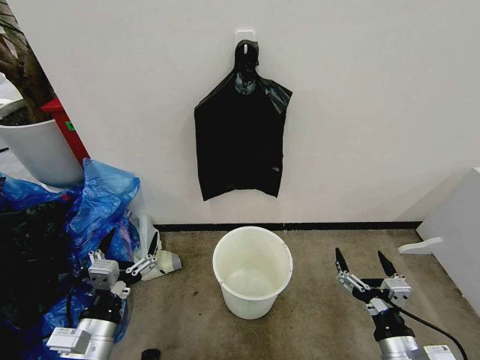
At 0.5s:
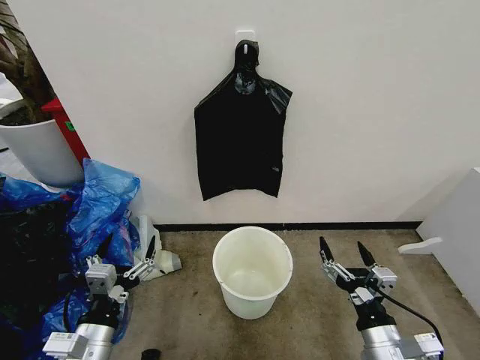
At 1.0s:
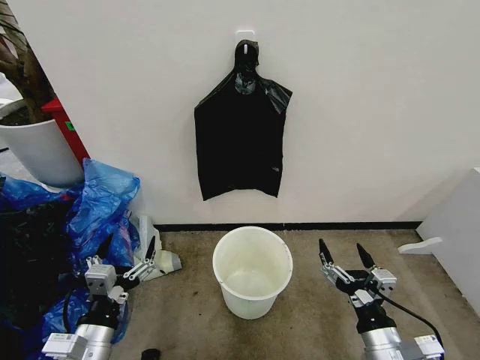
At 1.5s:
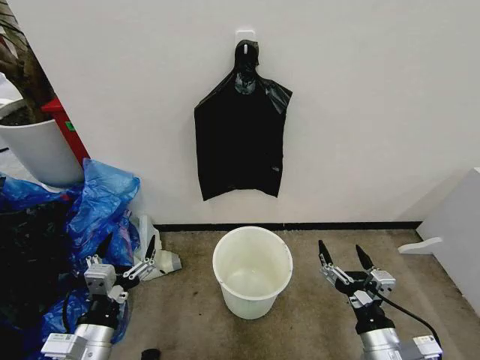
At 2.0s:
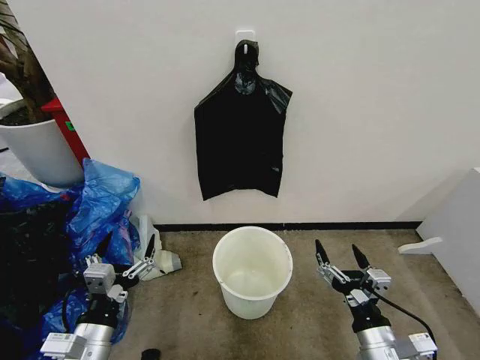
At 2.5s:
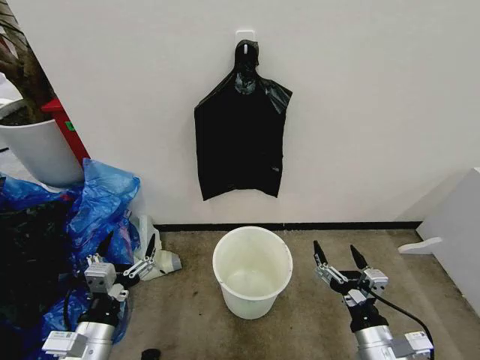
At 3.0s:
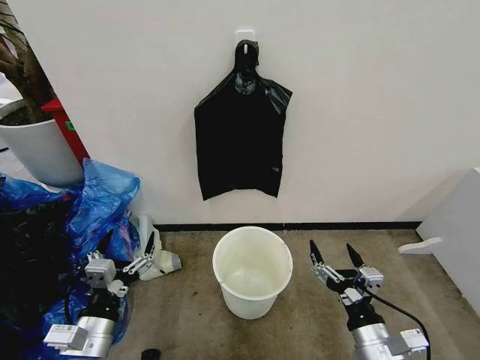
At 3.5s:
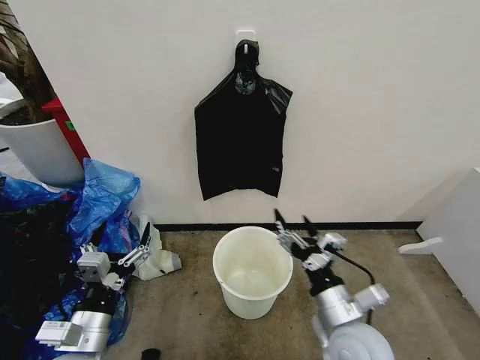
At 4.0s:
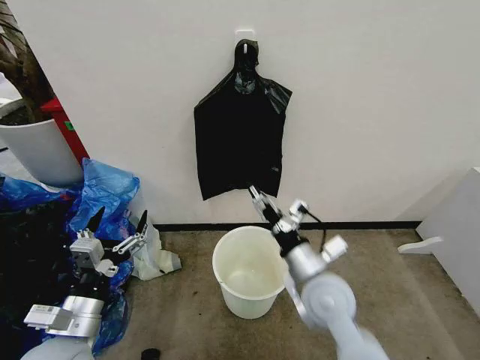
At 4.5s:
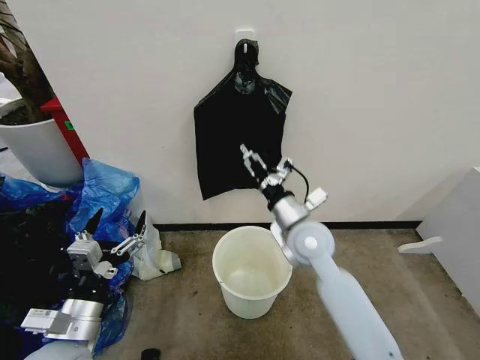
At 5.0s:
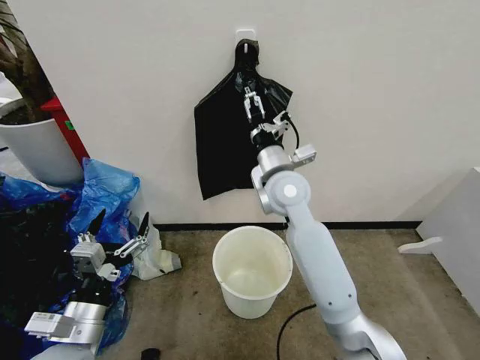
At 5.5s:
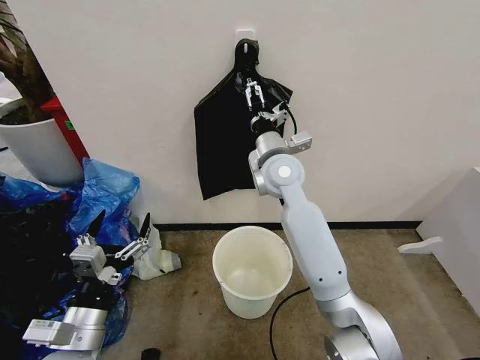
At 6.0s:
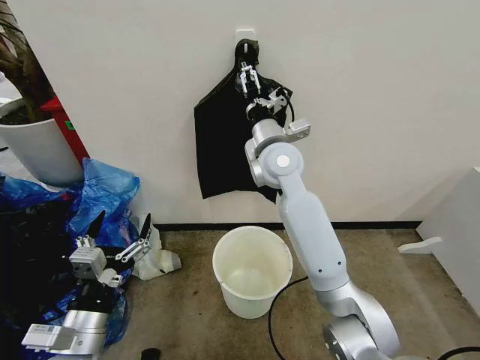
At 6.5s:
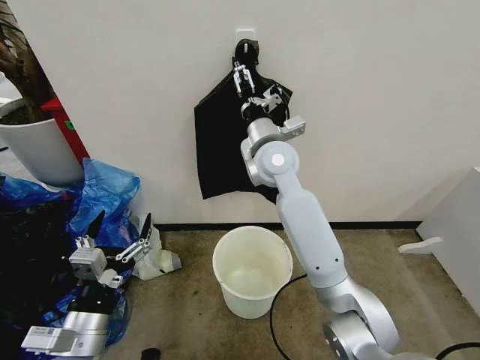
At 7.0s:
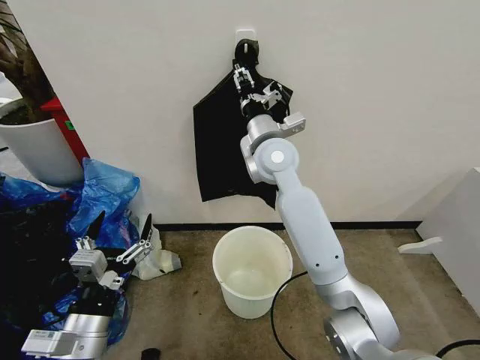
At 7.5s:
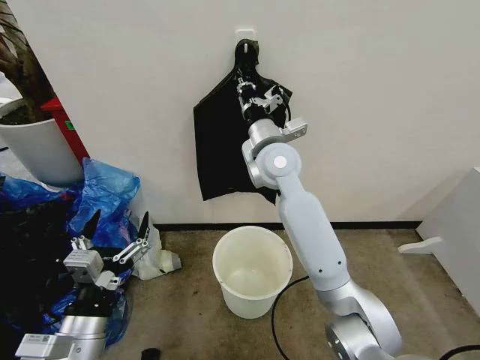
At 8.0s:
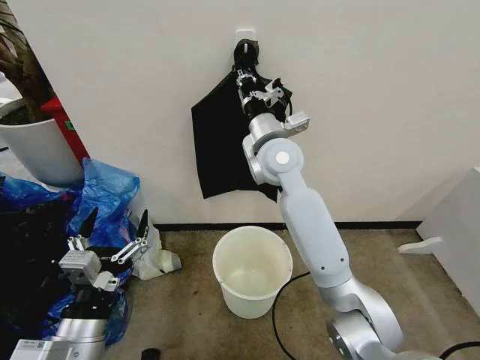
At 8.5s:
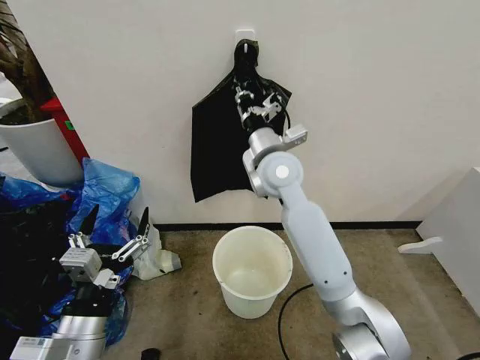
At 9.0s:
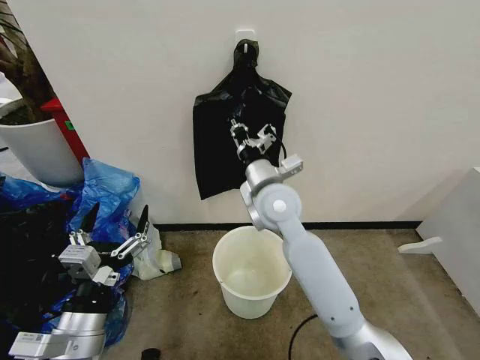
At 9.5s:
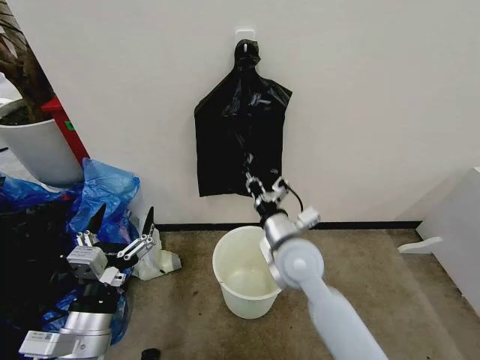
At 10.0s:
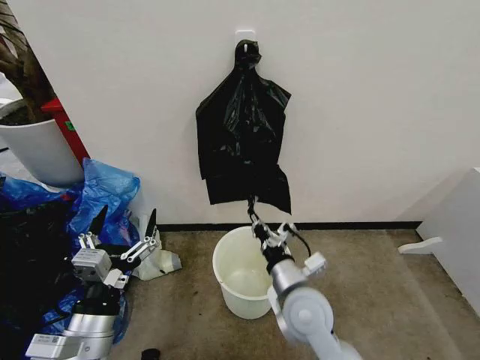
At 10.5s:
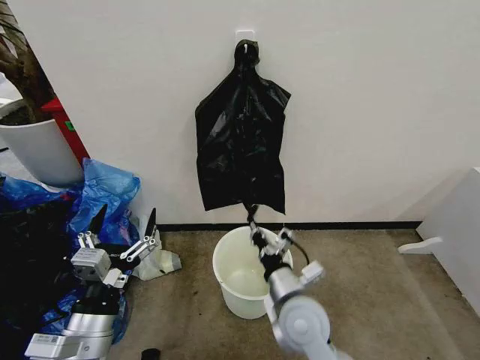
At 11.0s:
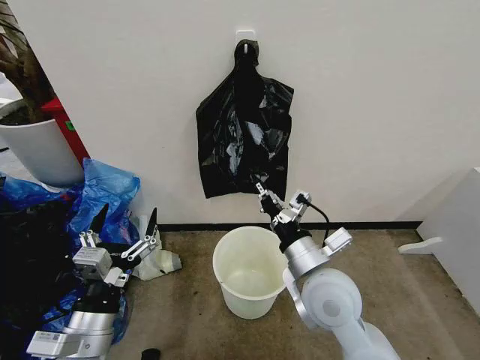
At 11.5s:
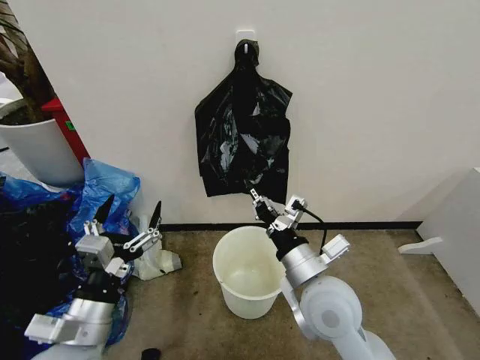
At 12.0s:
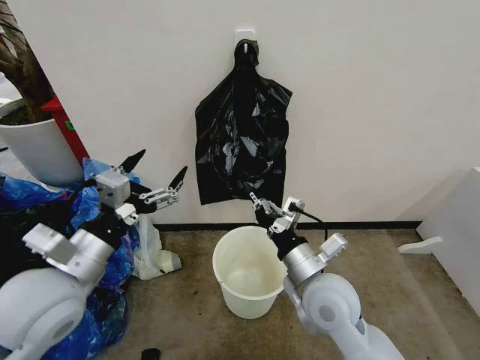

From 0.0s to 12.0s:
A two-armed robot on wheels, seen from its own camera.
Task of the whole recording: Place the garbage bag over the trash bin.
From 2.0s to 4.0s: The right gripper shifts about 20 cm forward, to the left and upward.
From 4.0s to 6.0s: The right gripper is displaced forward, upward and to the left by roughly 25 cm.
From 6.0s to 8.0s: The right gripper closes.
From 8.0s to 10.0s: The right gripper goes approximately 30 cm downward and backward.
From 10.0s to 12.0s: The left gripper travels upward and forward by approximately 15 cm, while the right gripper is displaced upward by about 5 cm.

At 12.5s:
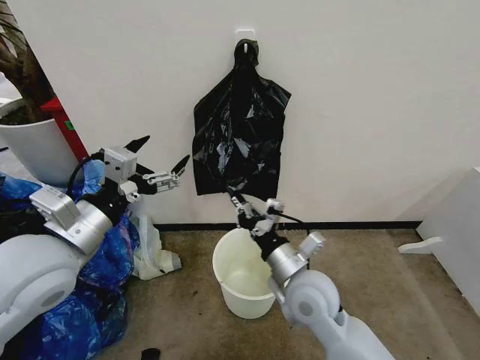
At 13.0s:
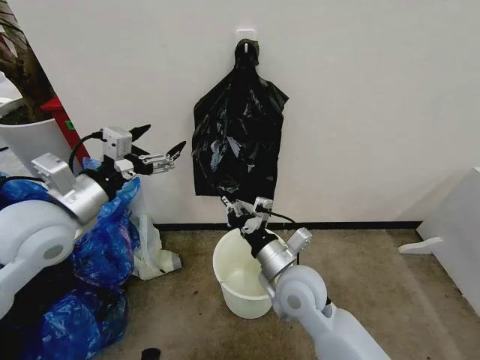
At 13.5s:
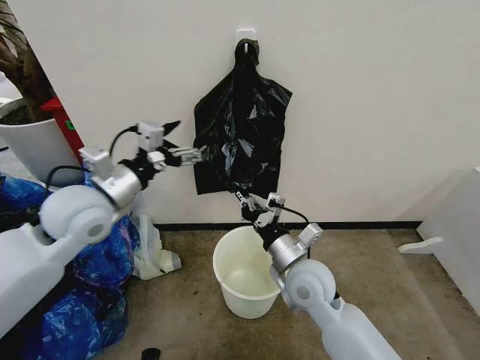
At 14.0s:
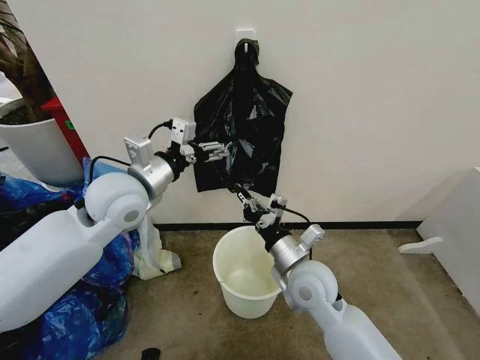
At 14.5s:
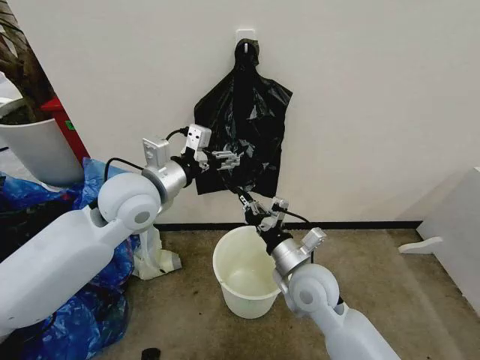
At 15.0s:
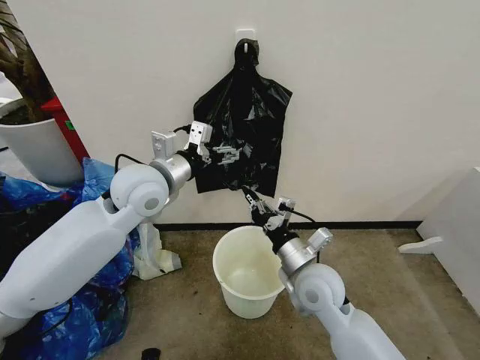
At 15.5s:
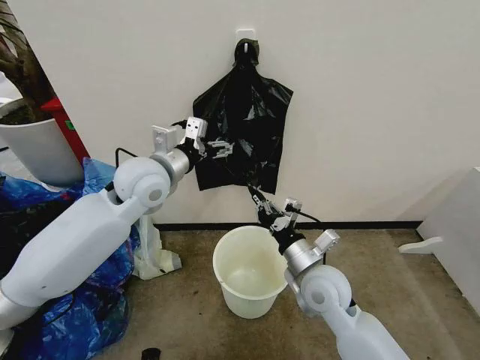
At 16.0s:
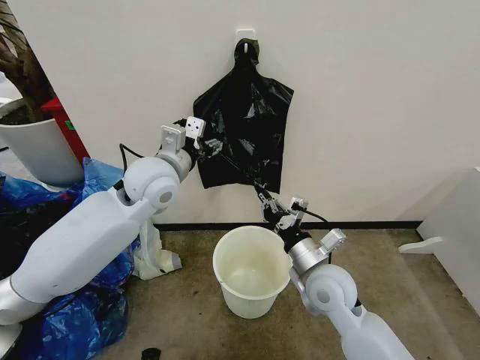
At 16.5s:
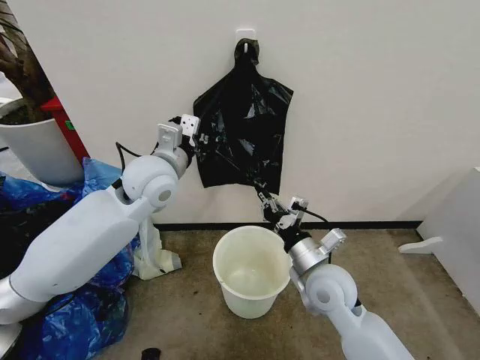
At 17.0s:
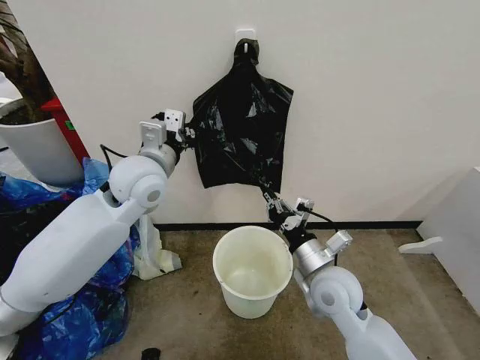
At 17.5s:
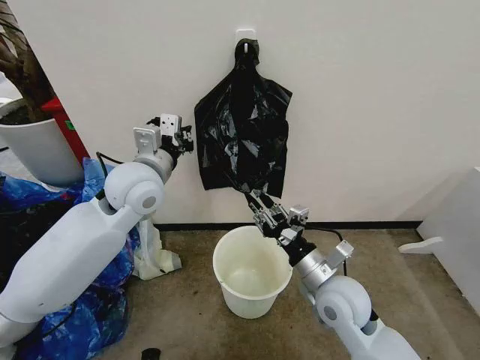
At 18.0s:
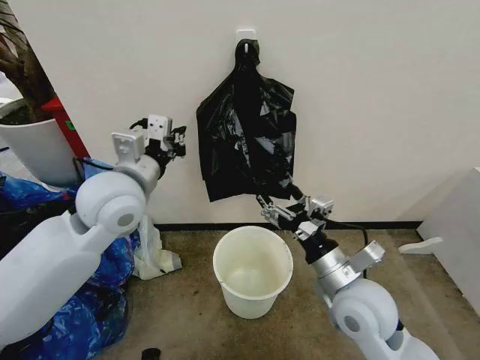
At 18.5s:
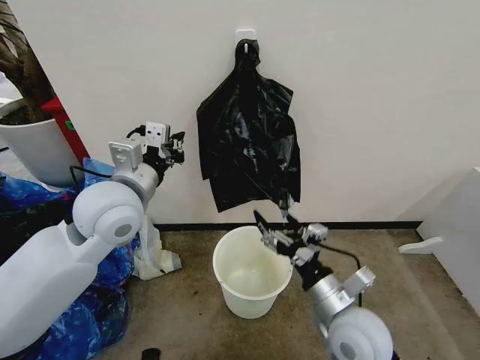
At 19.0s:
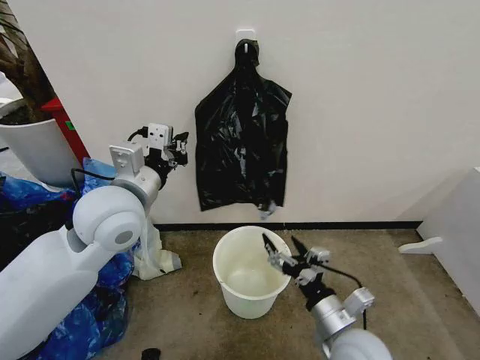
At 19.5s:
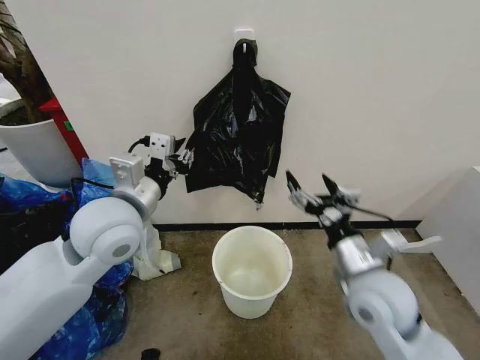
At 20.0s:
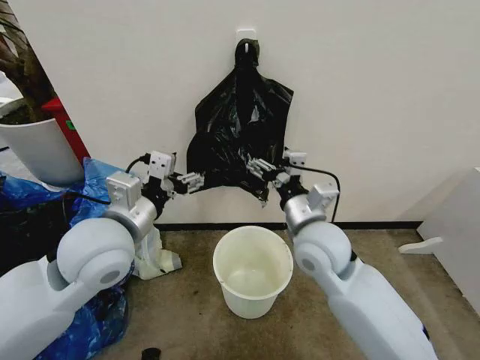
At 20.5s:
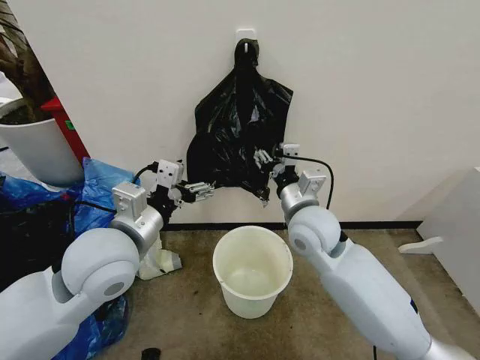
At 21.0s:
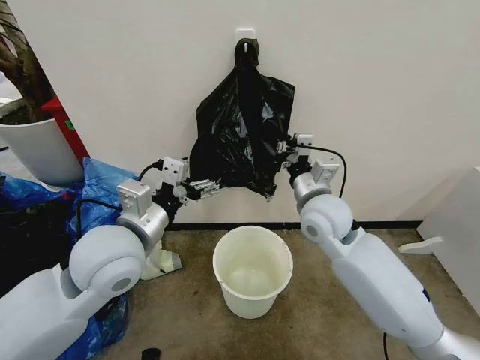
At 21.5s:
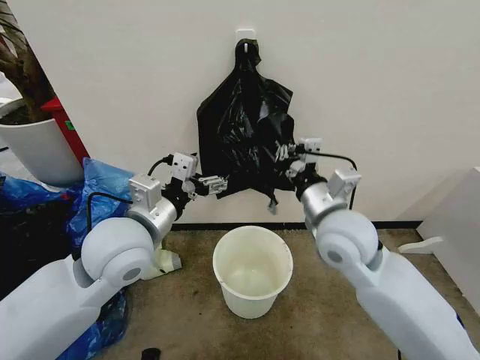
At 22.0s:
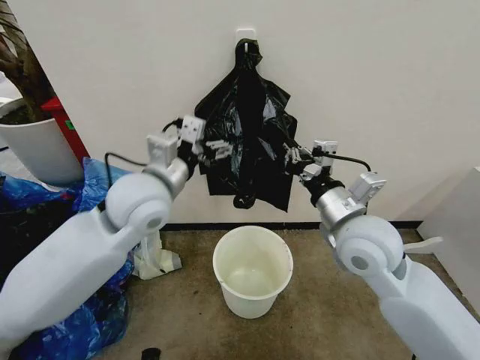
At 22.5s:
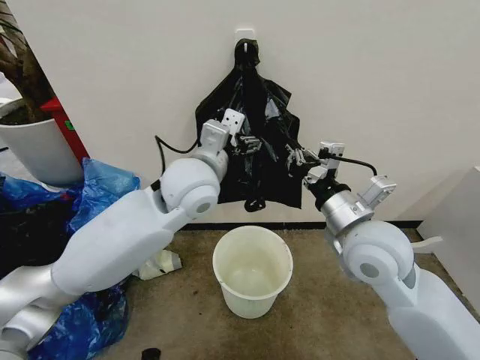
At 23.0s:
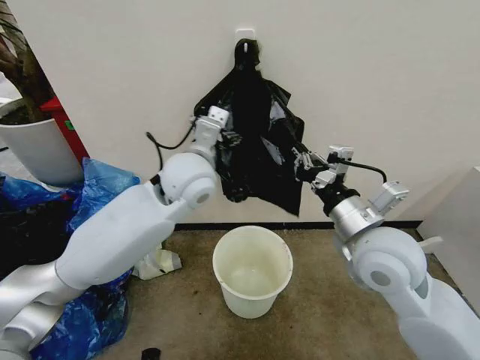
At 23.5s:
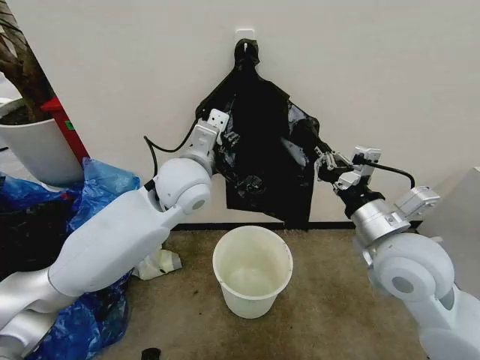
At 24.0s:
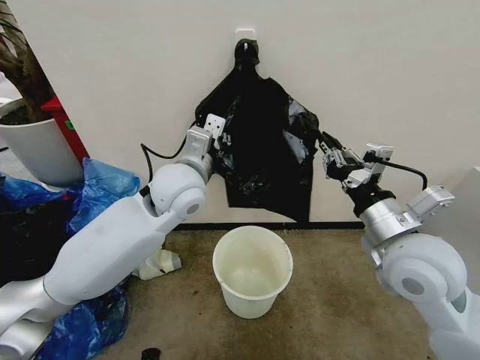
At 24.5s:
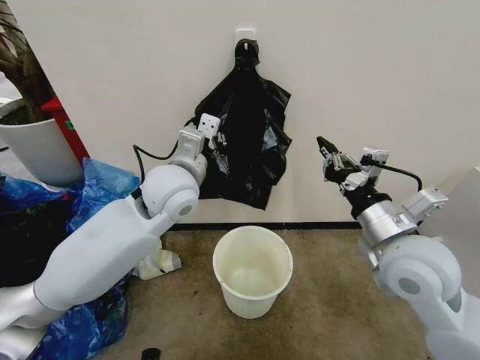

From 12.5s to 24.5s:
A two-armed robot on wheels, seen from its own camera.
Task of the whole recording: Place the garbage bag over the trash bin.
From 12.5s to 14.5s: The left gripper is displaced forward and to the right by roughly 15 cm.
From 14.5s to 16.5s: The left gripper moves some 5 cm, and closes.
From 16.5s to 18.5s: The two grippers go approximately 10 cm backward. The right gripper opens.
From 18.5s to 20.5s: The left gripper travels backward by roughly 5 cm, and opens. The right gripper travels forward and upward by roughly 20 cm, and closes up.
From 20.5s to 22.5s: The left gripper heads forward and to the right, covering about 15 cm, while the right gripper goes some 10 cm backward and to the right, and closes its fingers.
From 22.5s to 24.5s: The right gripper ends up some 5 cm from where it was. The left gripper closes up.

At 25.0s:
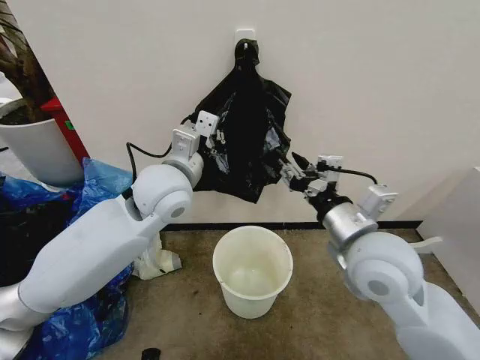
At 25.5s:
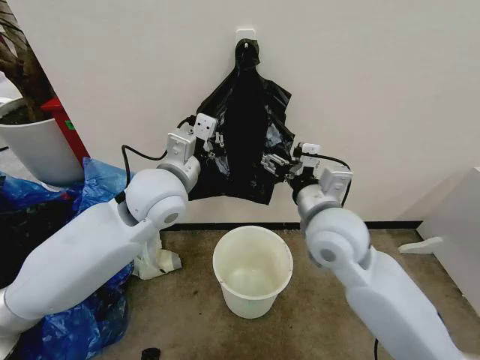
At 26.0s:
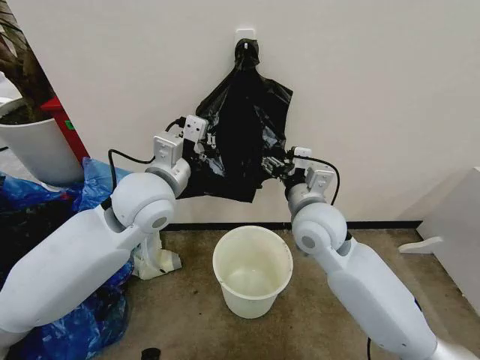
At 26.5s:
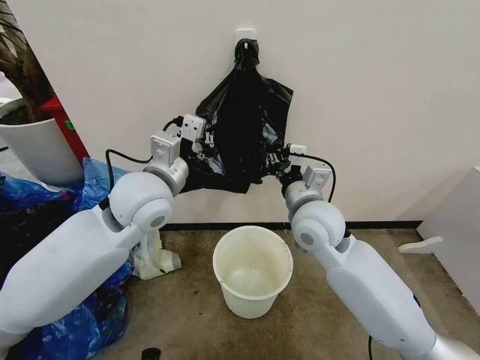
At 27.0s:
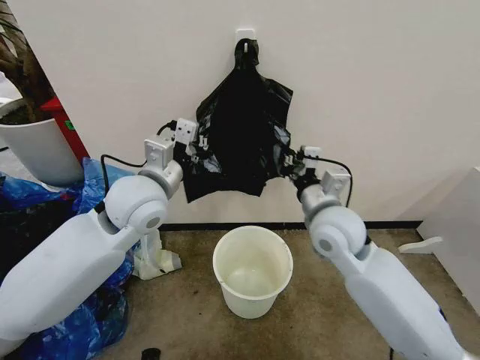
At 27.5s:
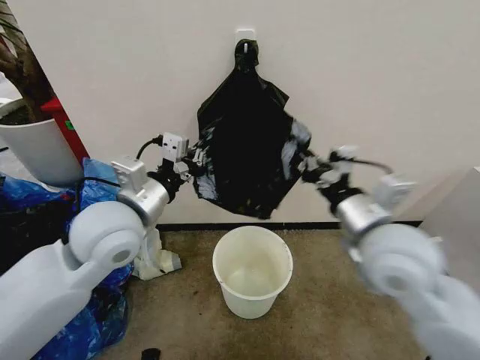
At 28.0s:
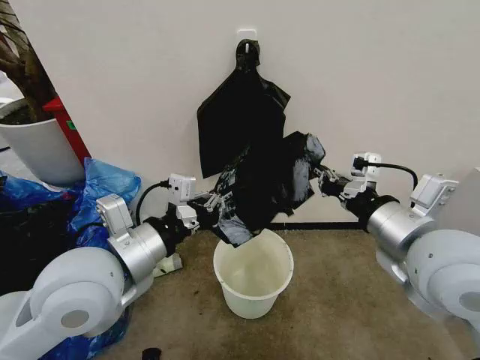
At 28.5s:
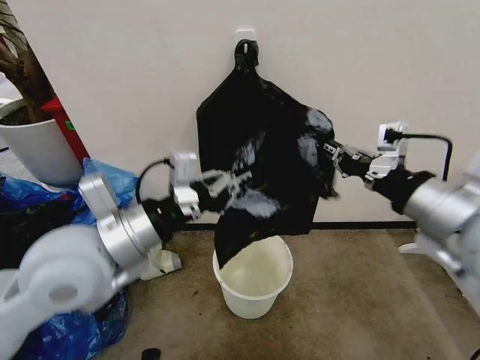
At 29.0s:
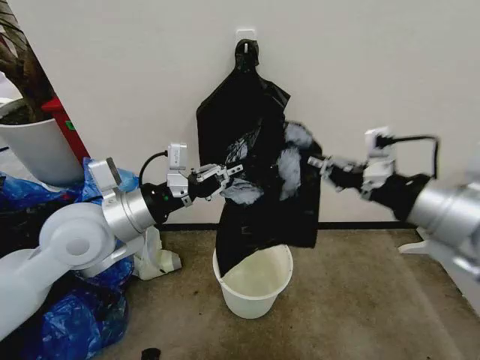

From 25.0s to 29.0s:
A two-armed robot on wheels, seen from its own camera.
Task of the whole recording: Place the garbage bag over the trash bin.
From 25.0s to 27.0s: The right gripper shifts approximately 10 cm forward, and closes its fingers.
From 27.0s to 29.0s: The right gripper shifts about 25 cm upward, backward and to the right; the left gripper moves backward and to the left, approximately 10 cm.
